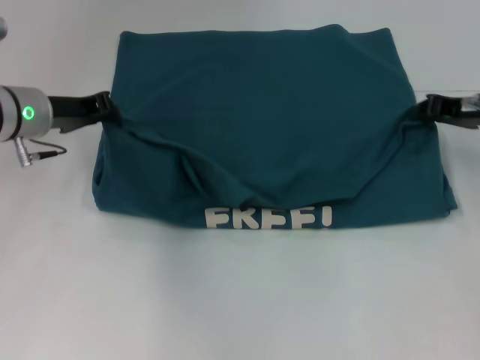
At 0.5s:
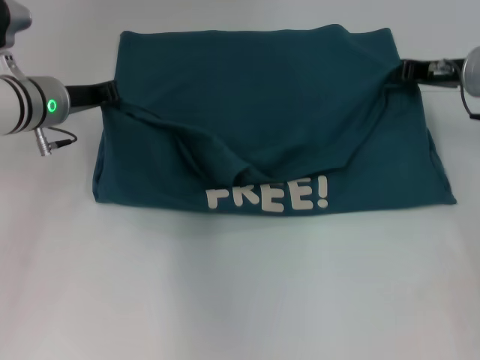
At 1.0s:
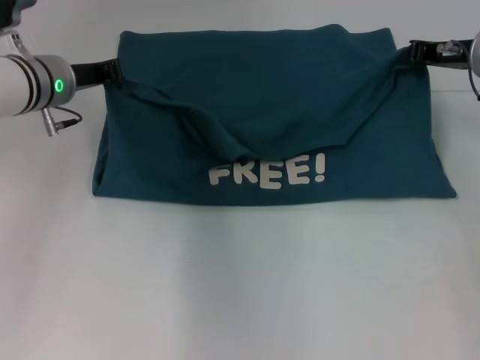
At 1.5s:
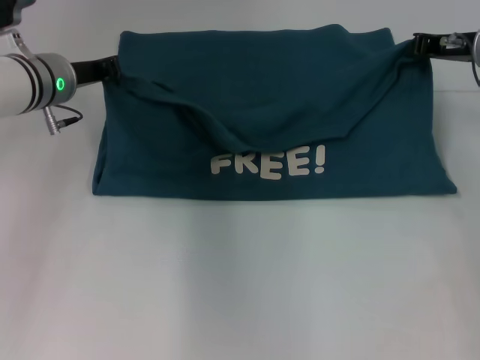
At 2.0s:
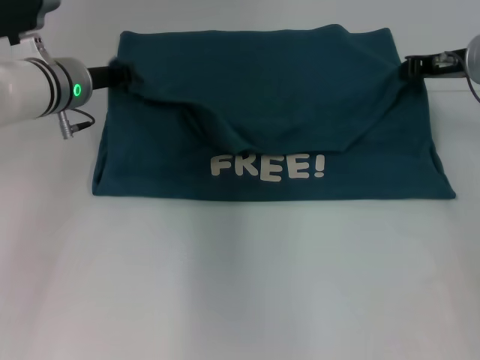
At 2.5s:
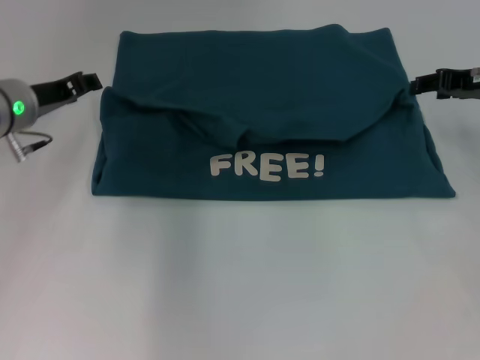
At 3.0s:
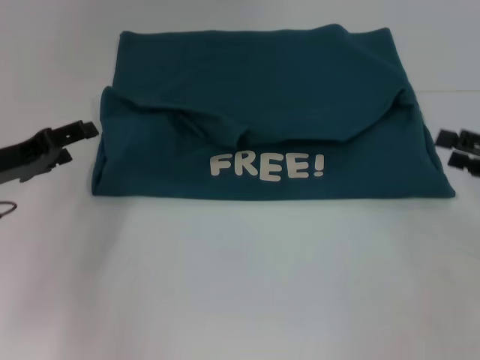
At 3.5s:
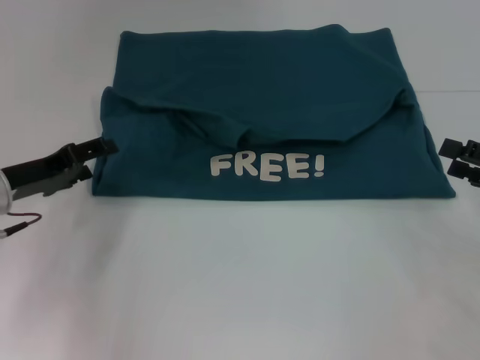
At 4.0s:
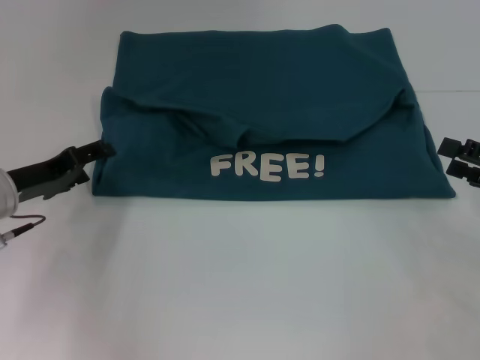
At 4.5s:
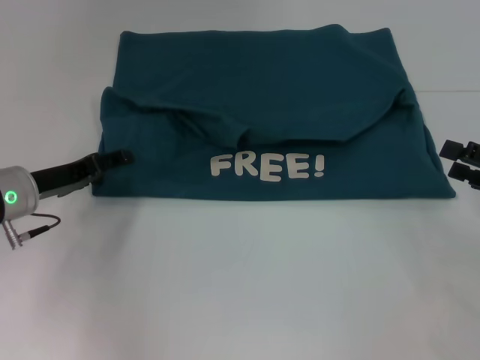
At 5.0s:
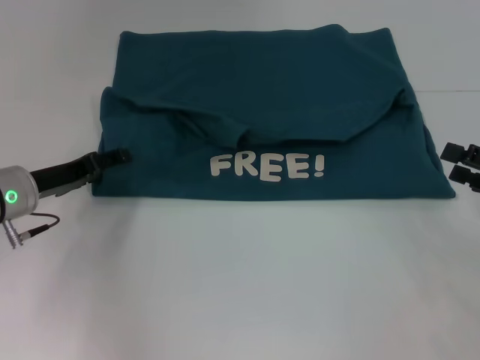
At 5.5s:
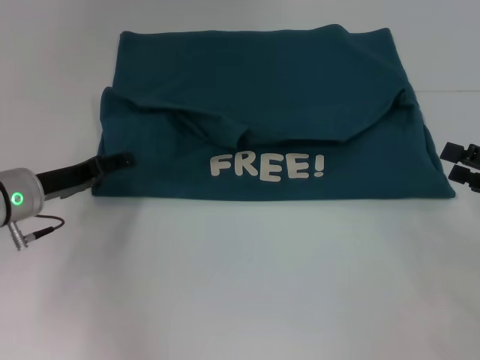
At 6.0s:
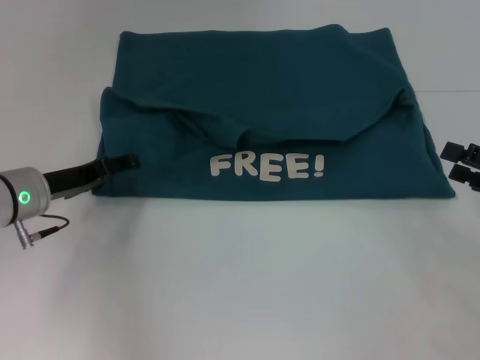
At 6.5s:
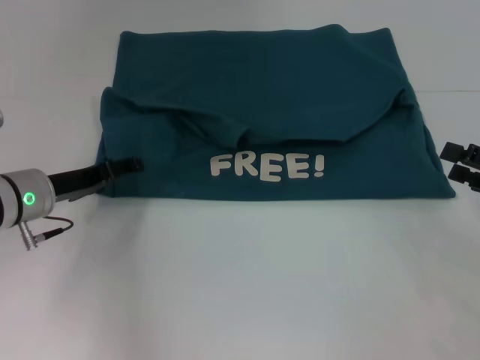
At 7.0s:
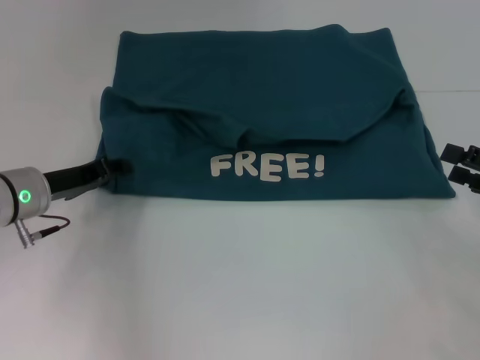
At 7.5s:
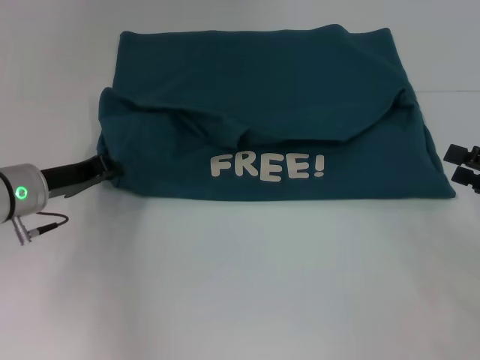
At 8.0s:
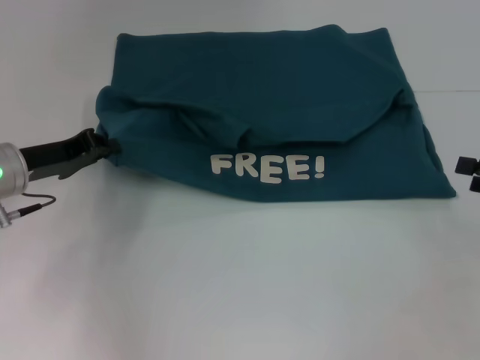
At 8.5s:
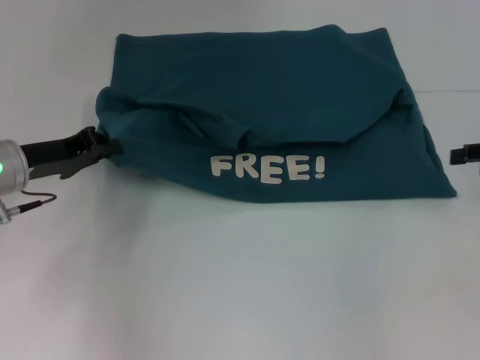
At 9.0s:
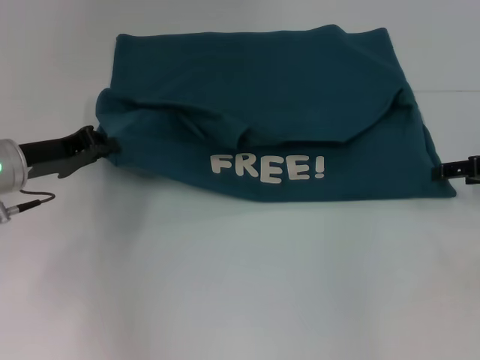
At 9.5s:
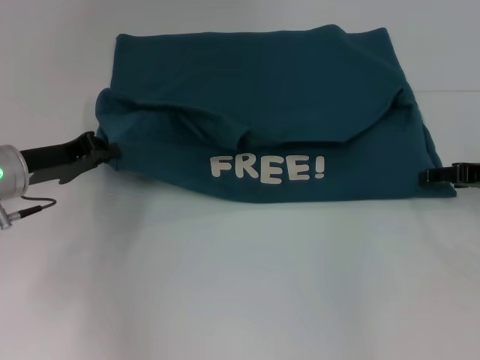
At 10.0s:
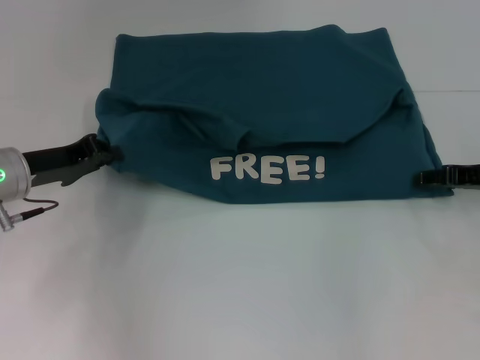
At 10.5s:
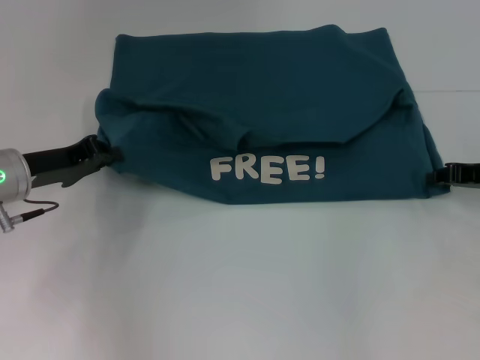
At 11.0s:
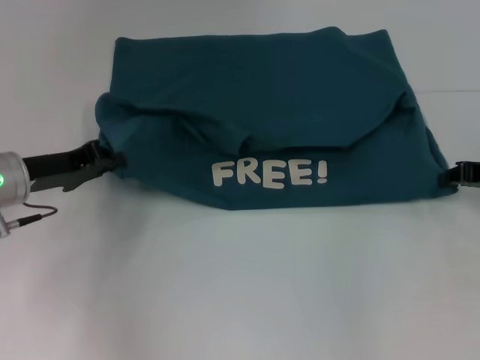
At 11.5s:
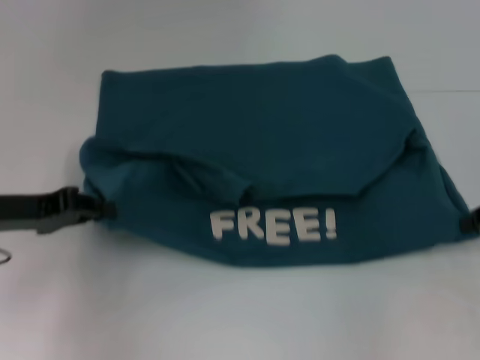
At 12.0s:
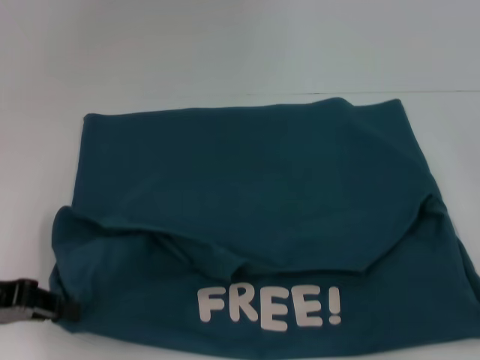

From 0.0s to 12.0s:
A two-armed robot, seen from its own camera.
Step, from 0.0s to 2.0s: Fold the clothes to the left.
Step, from 0.0s to 2.0s: Fold the clothes to the right.
Step, from 2.5s to 11.5s: Pull the clothes with your left hand.
Step, from 2.5s to 11.5s: Pull the clothes with your right hand.
From 0.0s to 2.0s: The left gripper moves roughly 5 cm; the right gripper shifts by approximately 5 cm.
From 2.0s to 4.0s: The left gripper is displaced backward, to the left and downward by about 15 cm, and opens its fingers, while the right gripper is displaced backward and to the right by about 20 cm, and opens.
From 4.0s to 6.0s: The grippers make only small movements.
From 6.0s to 8.0s: The left gripper closes.
From 8.0s to 10.0s: The right gripper moves forward and to the left, some 10 cm.
From 10.0s to 12.0s: The right gripper is displaced backward by some 10 cm, and closes up. The left gripper heads backward and to the left, covering roughly 10 cm.

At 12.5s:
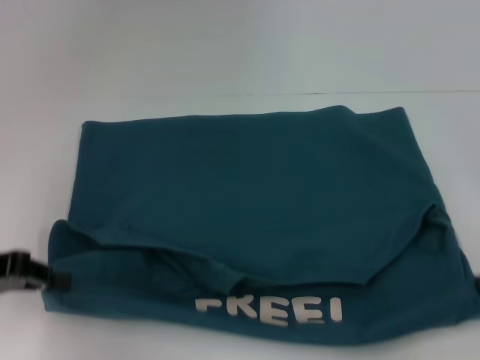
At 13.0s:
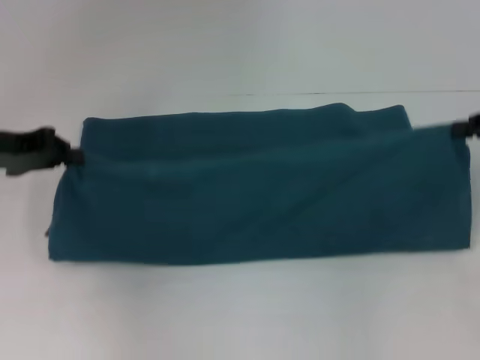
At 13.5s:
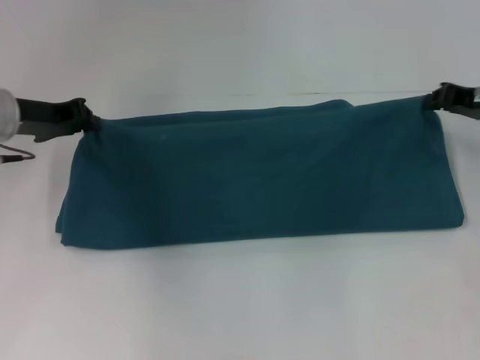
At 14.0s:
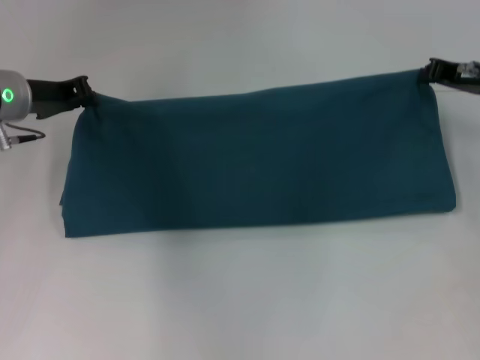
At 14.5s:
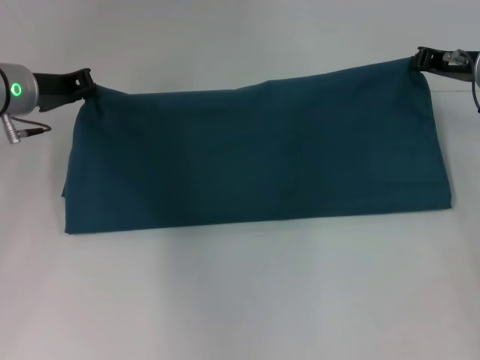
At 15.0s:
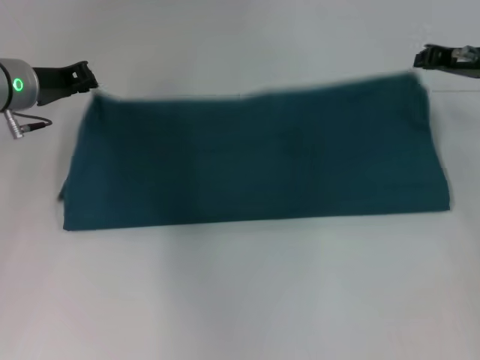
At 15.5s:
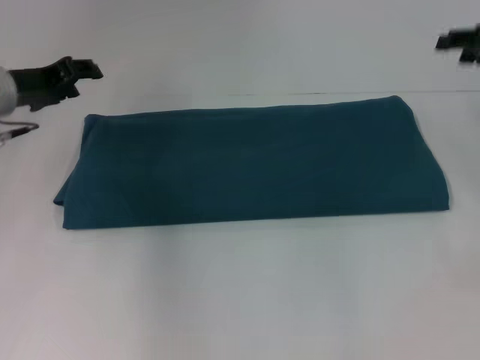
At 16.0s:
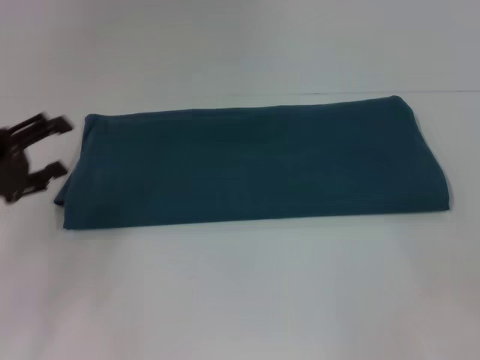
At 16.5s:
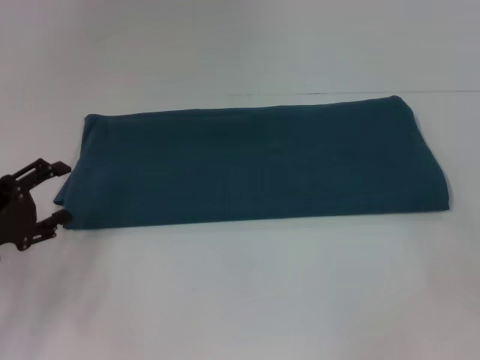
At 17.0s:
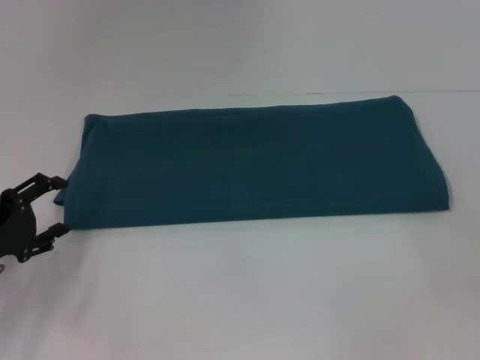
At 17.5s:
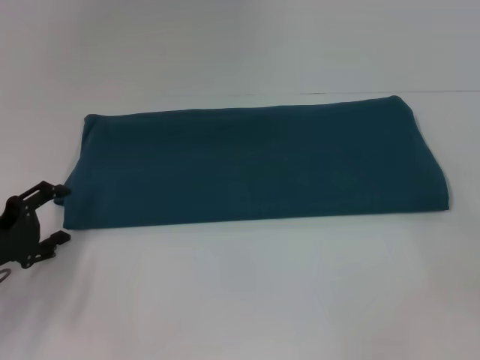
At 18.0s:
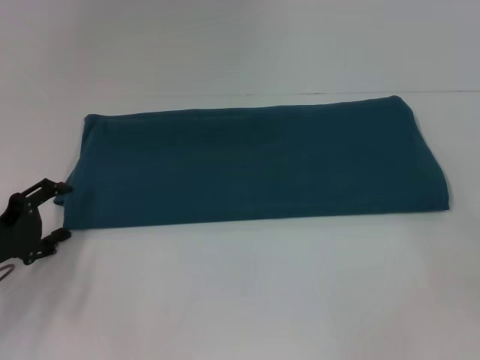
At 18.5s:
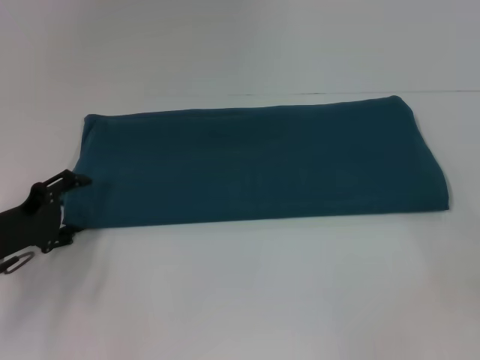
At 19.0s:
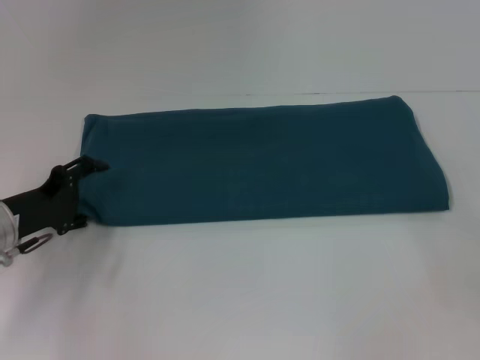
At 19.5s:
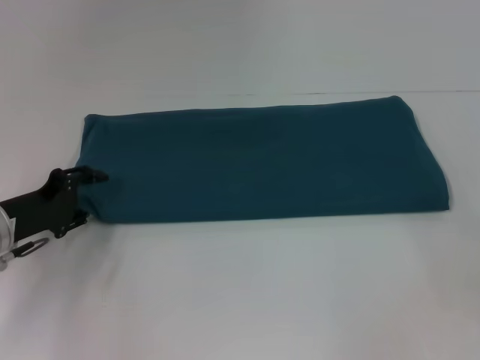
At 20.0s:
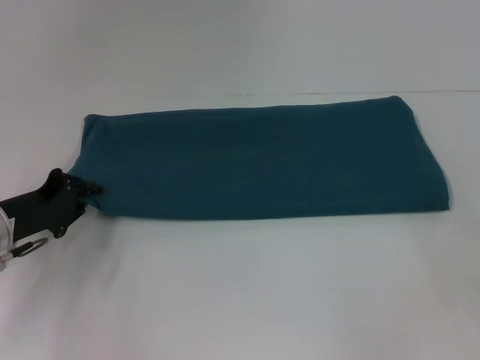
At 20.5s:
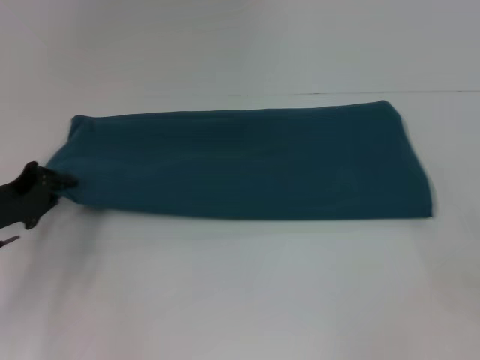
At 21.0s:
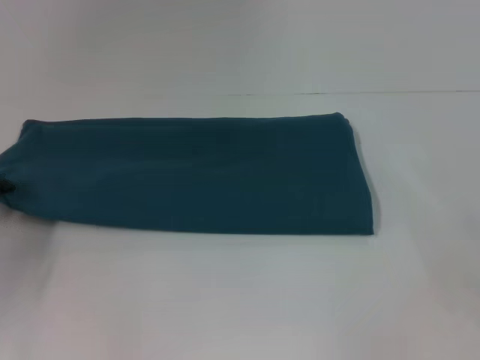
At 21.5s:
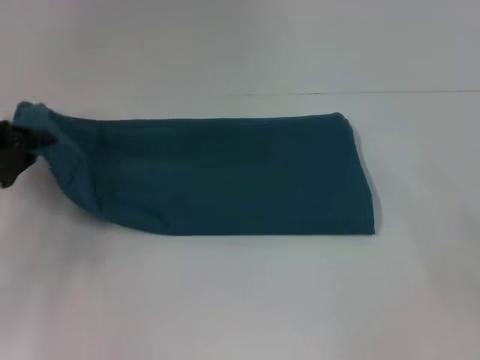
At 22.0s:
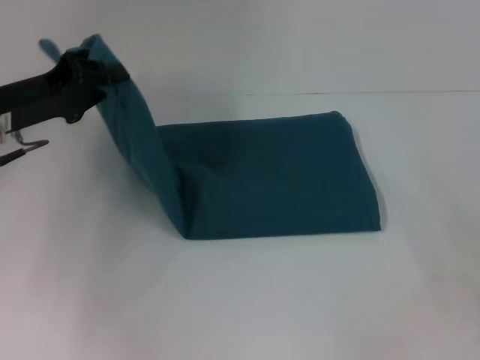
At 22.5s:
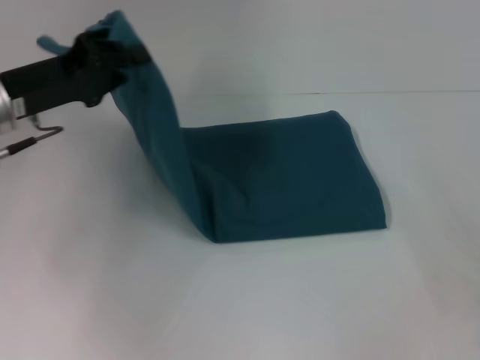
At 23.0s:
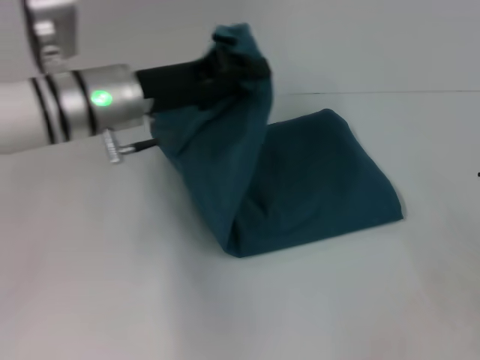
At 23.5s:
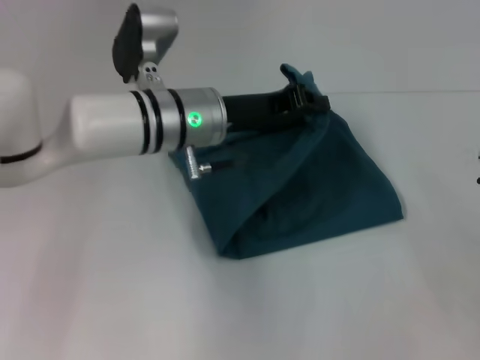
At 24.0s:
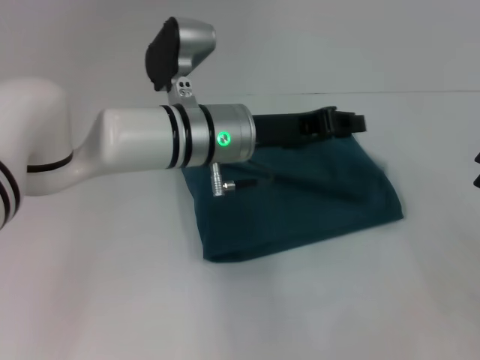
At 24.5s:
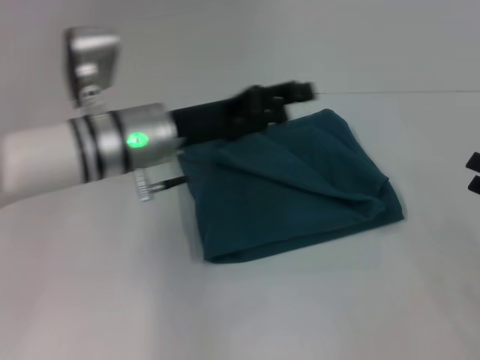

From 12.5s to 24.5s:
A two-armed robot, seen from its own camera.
Step, from 12.5s to 15.0s: Fold the clothes to the right.
Step, from 12.5s to 24.0s: Fold the clothes to the left.
From 12.5s to 14.5s: The left gripper shifts about 20 cm forward and to the right. Meanwhile the right gripper heads forward and to the left, covering roughly 20 cm.
From 14.5s to 16.5s: The left gripper moves backward, downward and to the left, some 20 cm, and opens its fingers. The right gripper heads backward and to the right, covering roughly 20 cm, and opens its fingers.
From 16.5s to 18.5s: The grippers stay close to where they were, moving slightly.
From 18.5s to 20.5s: The left gripper closes its fingers.
From 20.5s to 22.5s: The left gripper goes roughly 15 cm upward, to the right and forward.
From 22.5s to 24.5s: The left gripper heads to the right, covering roughly 15 cm, and opens up.

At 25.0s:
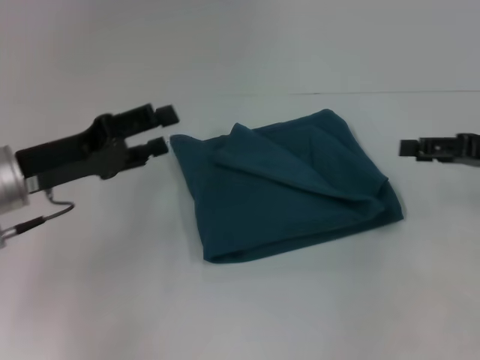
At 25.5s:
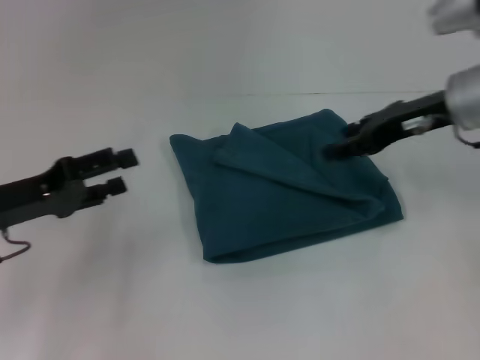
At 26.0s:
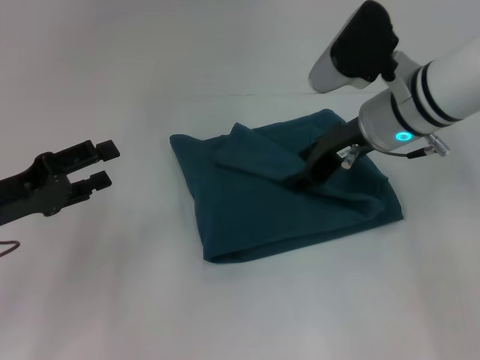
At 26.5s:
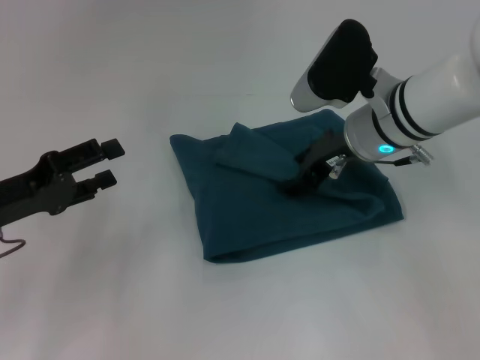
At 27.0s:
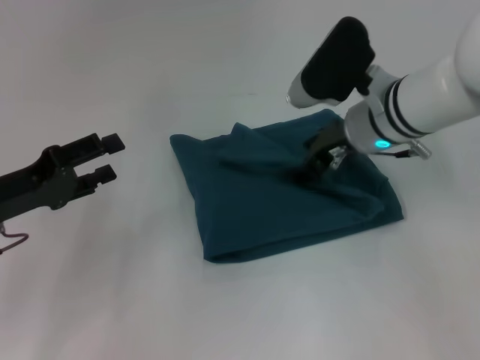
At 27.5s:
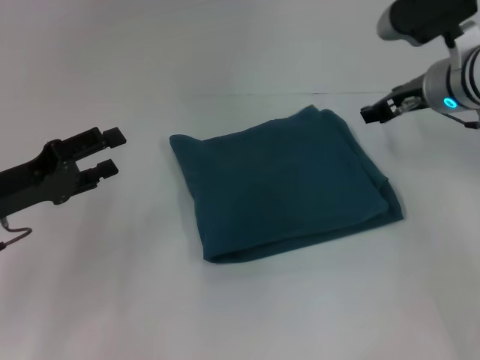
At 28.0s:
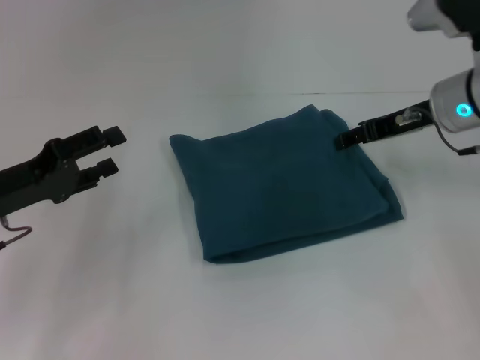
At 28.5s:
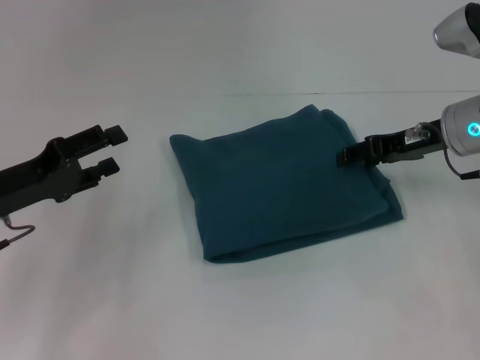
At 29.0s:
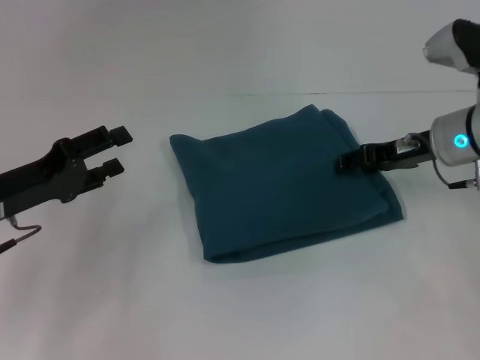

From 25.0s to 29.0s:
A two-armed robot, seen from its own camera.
From 25.0s to 27.0s: The left gripper changes place by approximately 5 cm. The right gripper is displaced to the left by about 20 cm.
From 27.0s to 29.0s: The right gripper travels to the right by about 10 cm.
